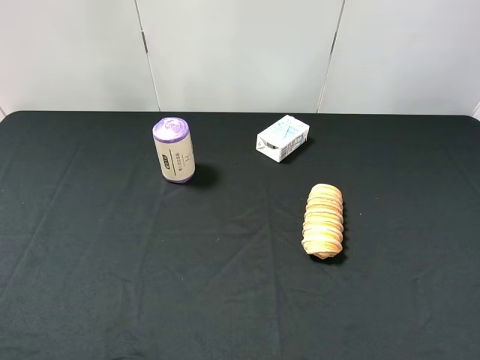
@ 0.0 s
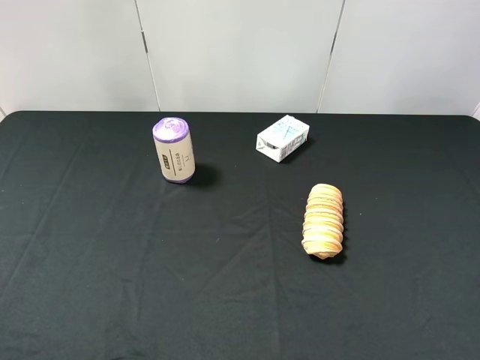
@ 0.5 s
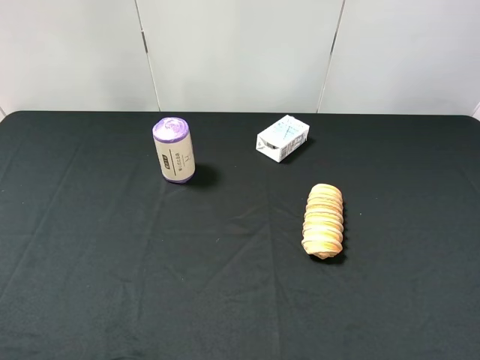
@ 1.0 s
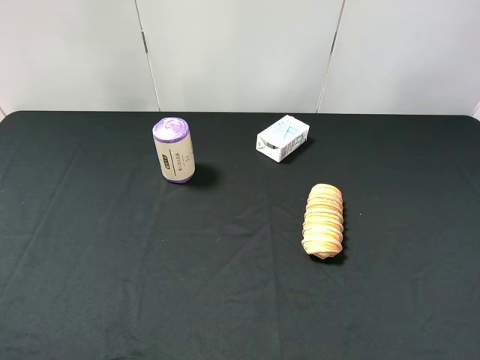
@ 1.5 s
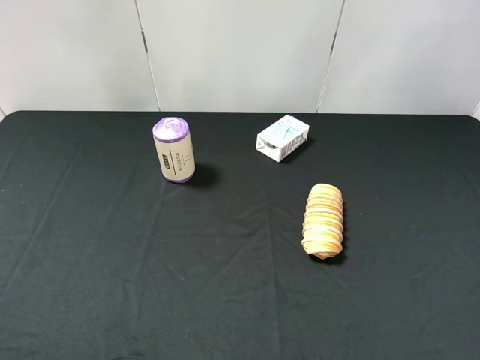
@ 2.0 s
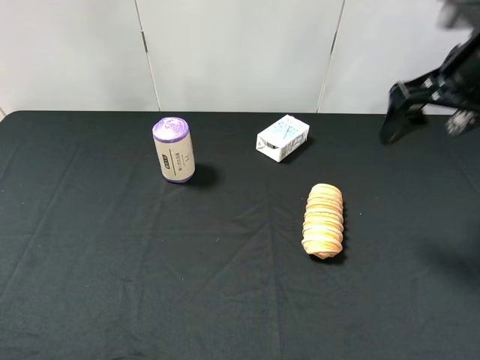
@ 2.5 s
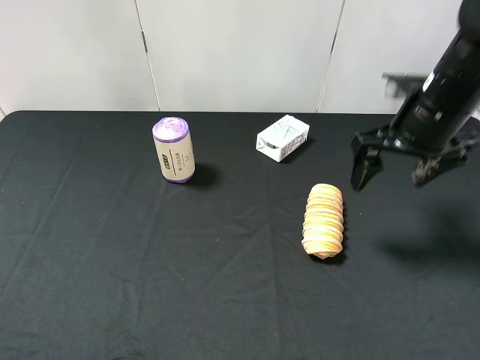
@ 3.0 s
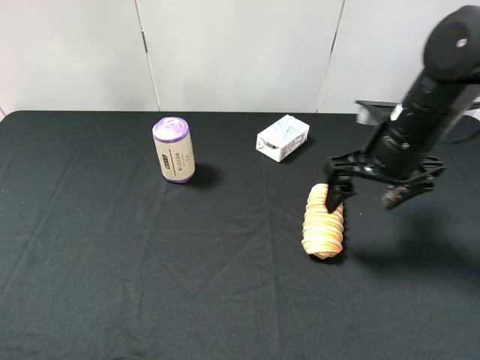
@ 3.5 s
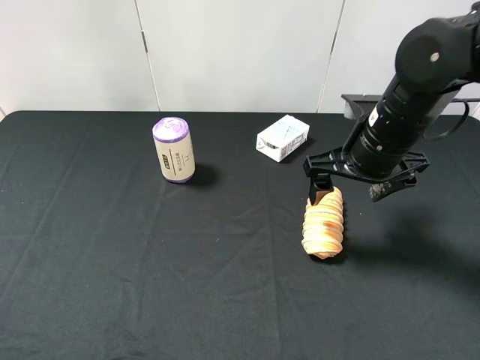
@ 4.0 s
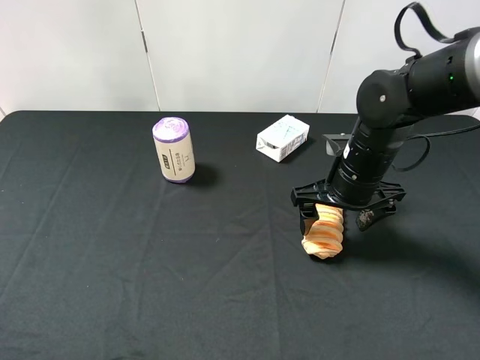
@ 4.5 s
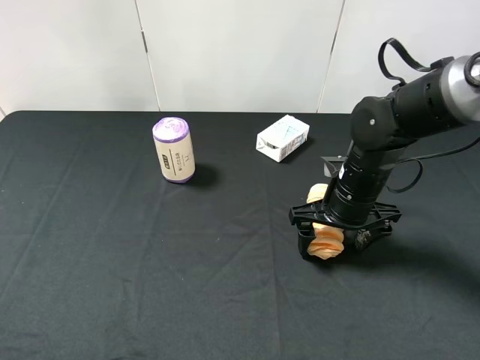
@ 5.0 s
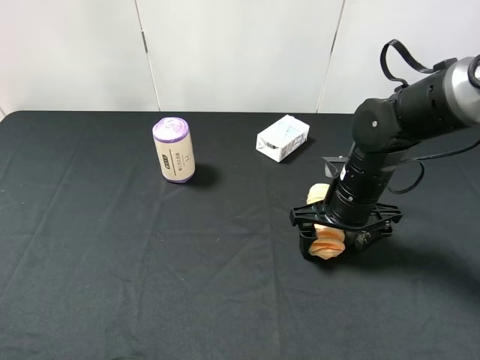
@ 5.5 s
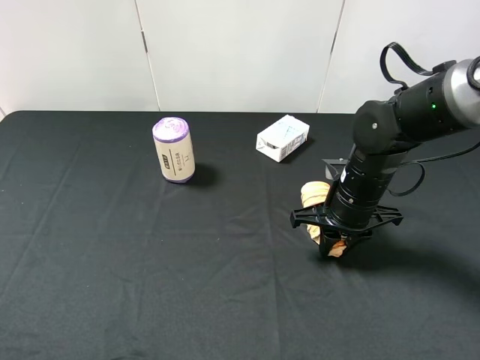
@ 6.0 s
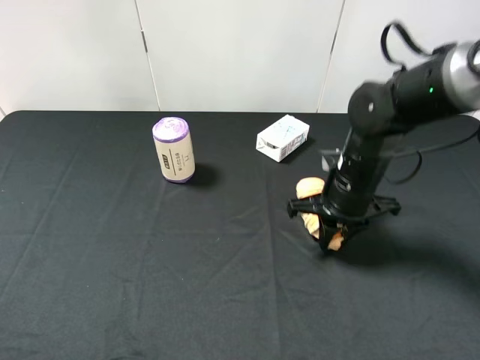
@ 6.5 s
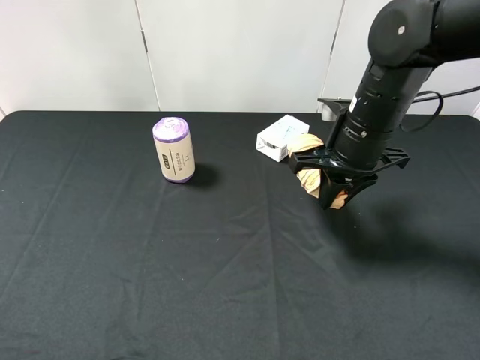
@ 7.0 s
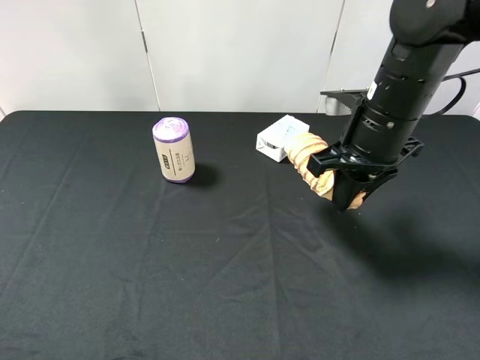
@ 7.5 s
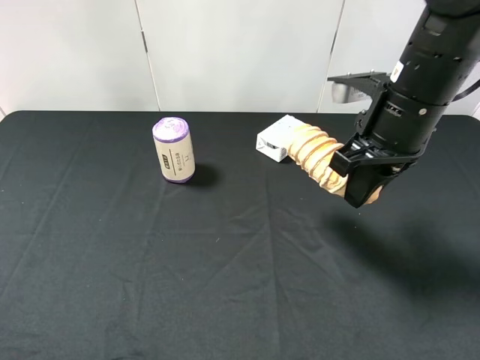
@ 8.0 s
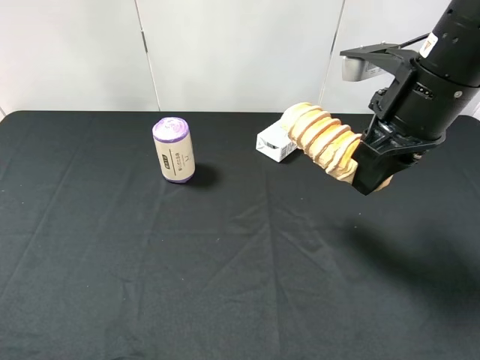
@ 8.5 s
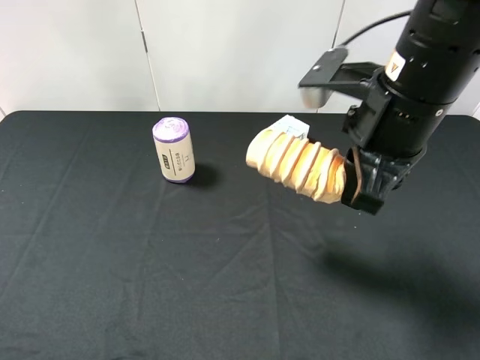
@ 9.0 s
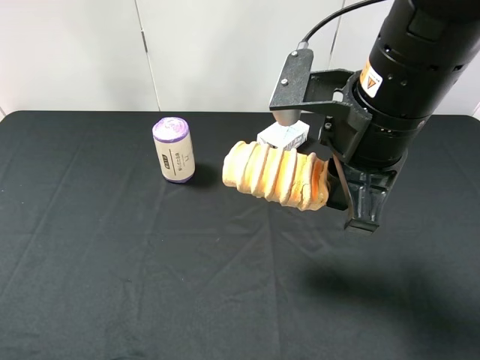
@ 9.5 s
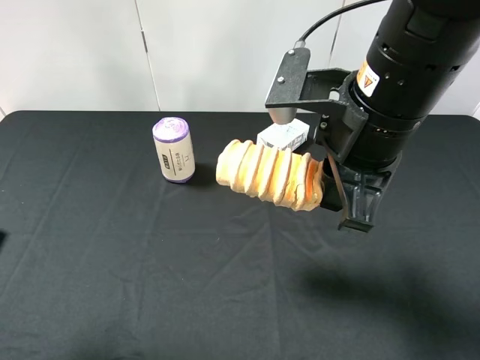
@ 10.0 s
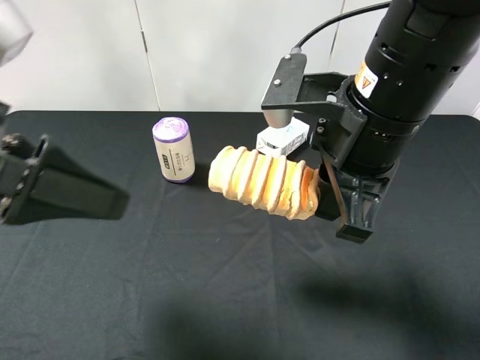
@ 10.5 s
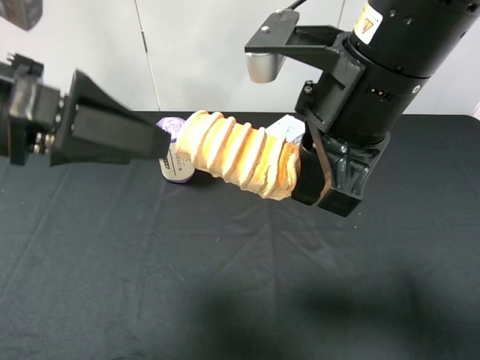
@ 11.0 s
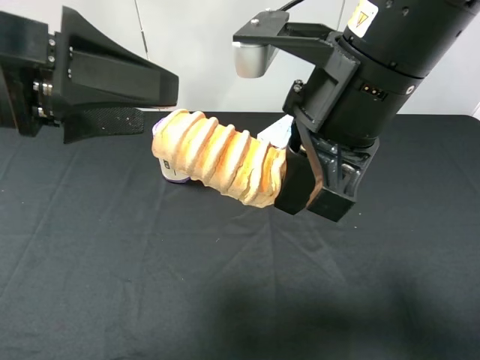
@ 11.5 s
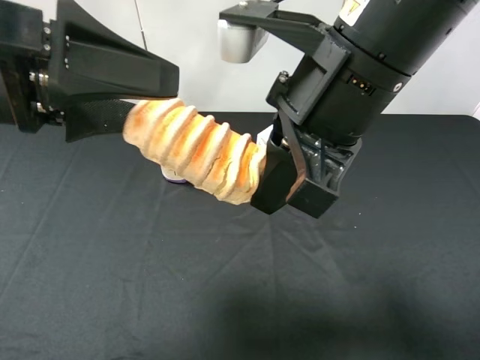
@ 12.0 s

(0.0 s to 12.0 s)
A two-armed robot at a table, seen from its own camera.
Task of the whole recording: use the right gripper to pick up the item and transfer it from the right gripper to the left gripper.
Step, 0.0 s - 5.5 s: Use the right gripper to grab the bread on the right side of the table.
2.0 s - 4.0 s: The right gripper shifts approximately 25 cm downward, to the left and forward.
4.0 s - 6.0 s: The right gripper shifts approximately 10 cm downward, and closes its fingers.
6.0 s - 8.0 s: The right gripper shifts some 15 cm upward.
8.0 s - 10.0 s: The left gripper is displaced forward and to the right by about 10 cm. Meanwhile the right gripper is displaced to the left and backward by roughly 10 cm.
10.0 s - 12.0 s: The left gripper heads forward and to the right, covering approximately 10 cm; the right gripper ends up about 5 cm from where it was.

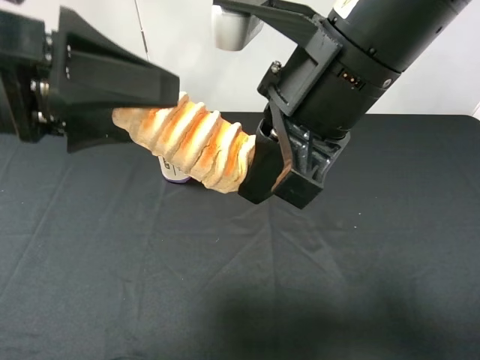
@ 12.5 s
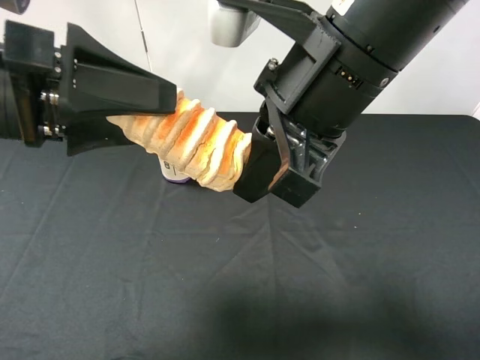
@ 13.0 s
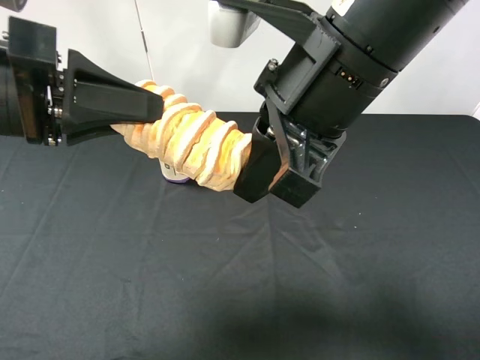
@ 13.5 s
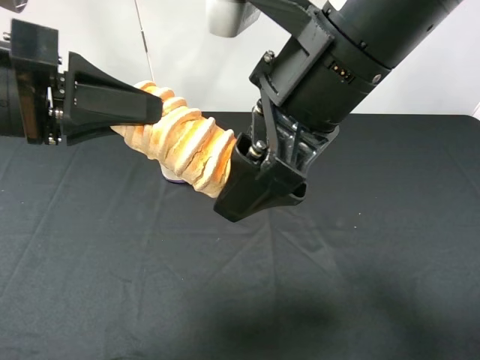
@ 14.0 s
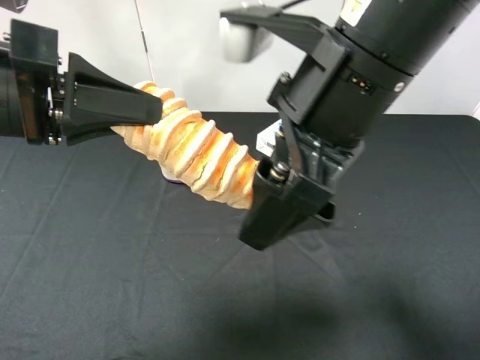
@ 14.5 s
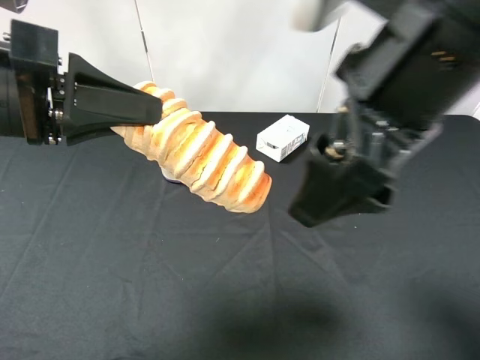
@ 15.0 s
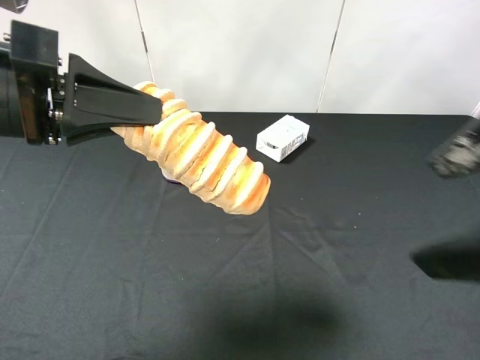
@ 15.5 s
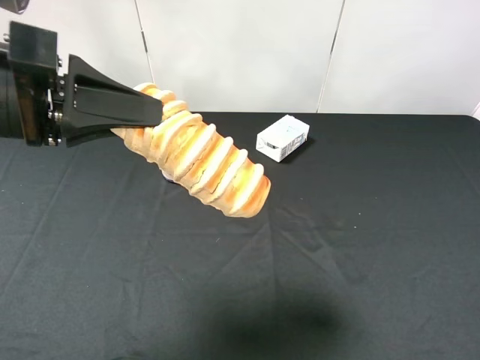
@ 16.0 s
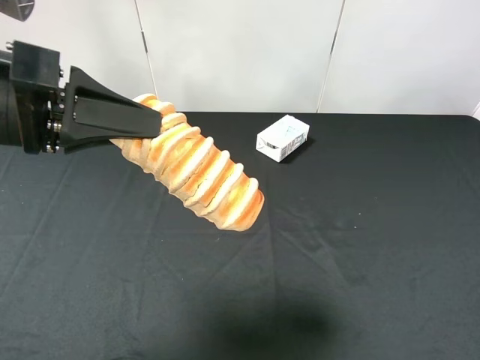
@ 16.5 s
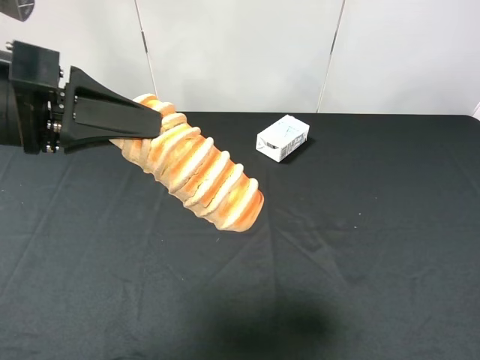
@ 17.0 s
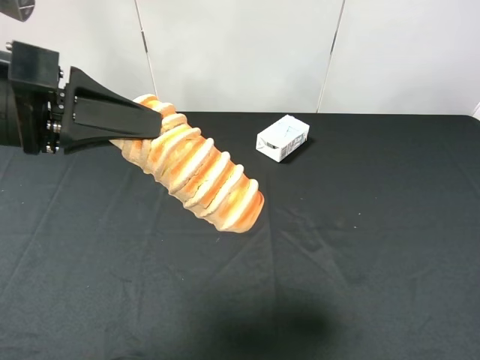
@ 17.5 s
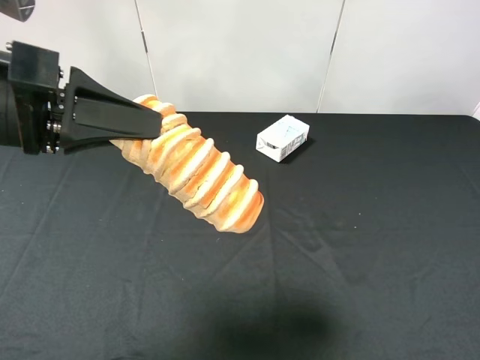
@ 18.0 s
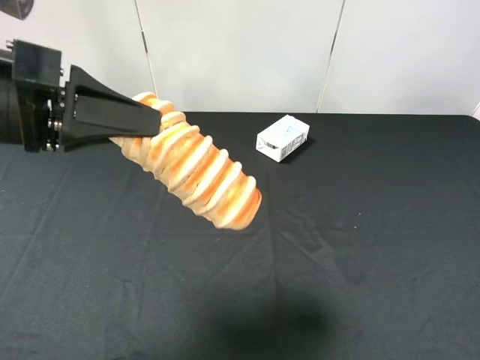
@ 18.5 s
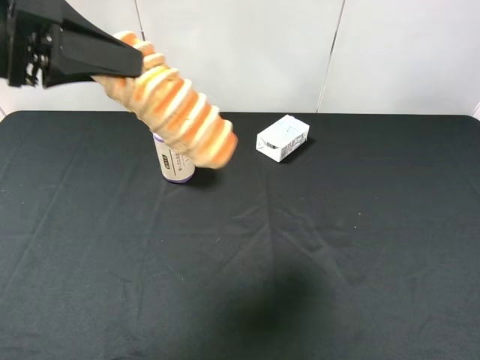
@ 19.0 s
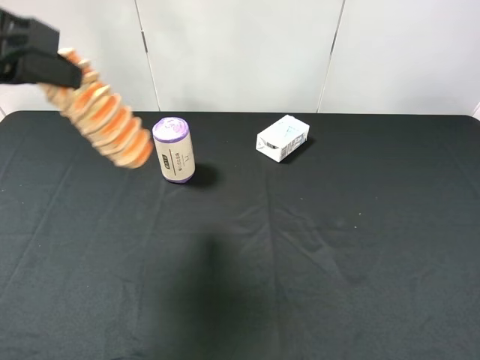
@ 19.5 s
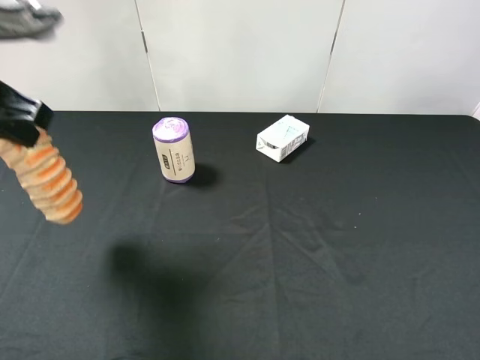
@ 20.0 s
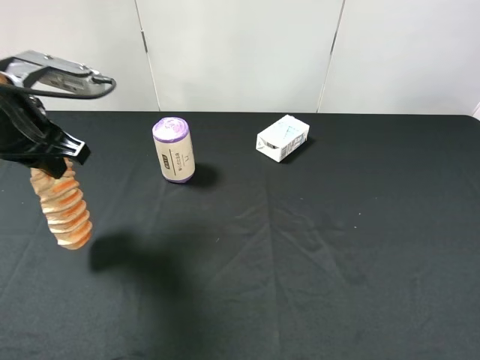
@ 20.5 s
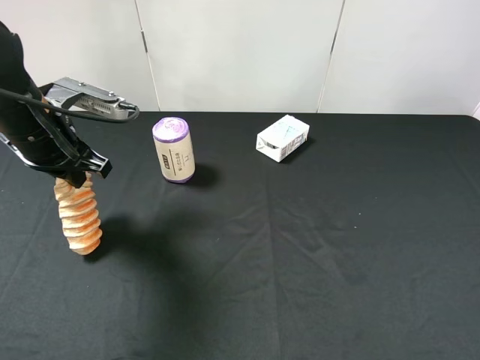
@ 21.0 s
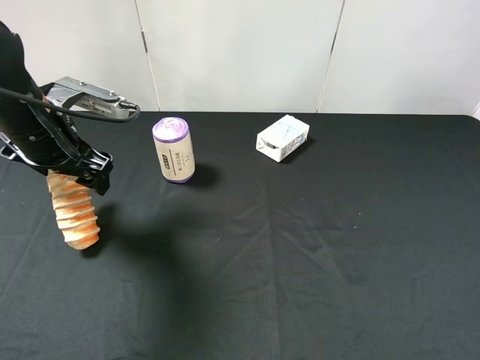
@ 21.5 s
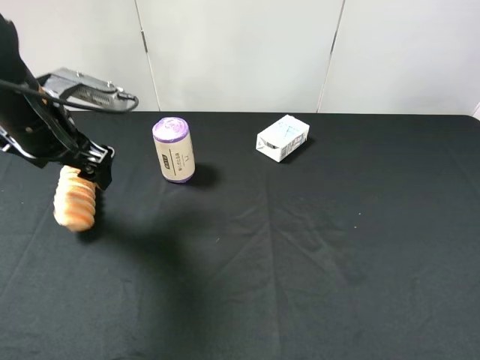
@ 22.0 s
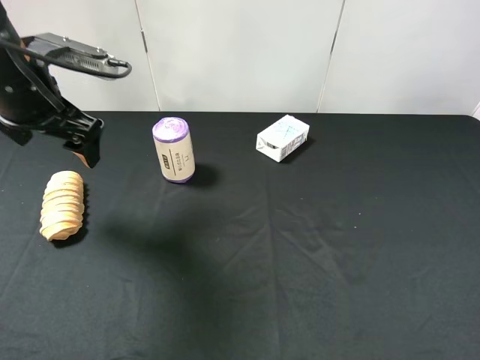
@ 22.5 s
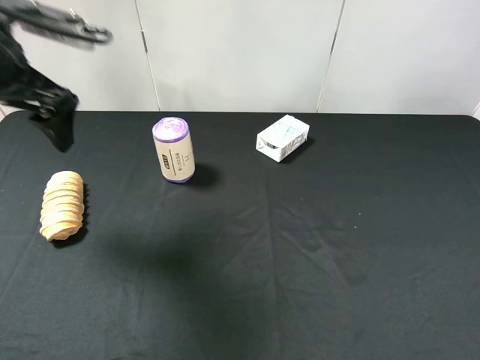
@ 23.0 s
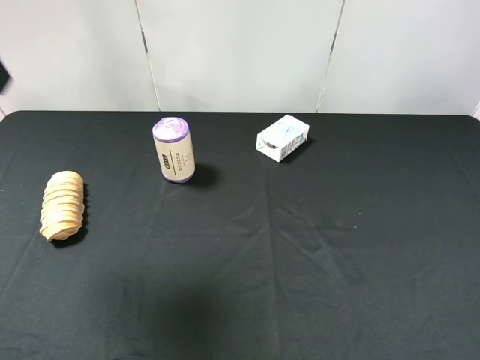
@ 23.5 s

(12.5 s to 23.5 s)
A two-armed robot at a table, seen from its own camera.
Task of the whole recording: use the right gripper to pick up the item and transfer it from the right gripper to the left gripper.
Step, 14.5 s - 21.5 s: The left gripper places bread on the left side of the table.
12.5 s - 14.5 s: The right gripper opens up. Meanwhile the left gripper closes up.
14.5 s - 16.0 s: The right gripper travels to the right and backward by roughly 25 cm.
18.0 s - 20.0 s: The left gripper travels to the left by some 5 cm.
20.0 s - 21.5 s: The left gripper is displaced downward and forward by about 10 cm, and opens up.
21.5 s - 23.5 s: The left gripper shifts about 20 cm upward and backward.

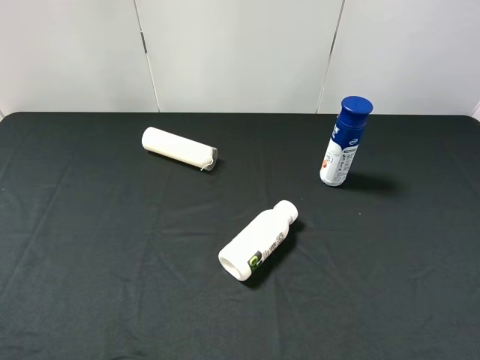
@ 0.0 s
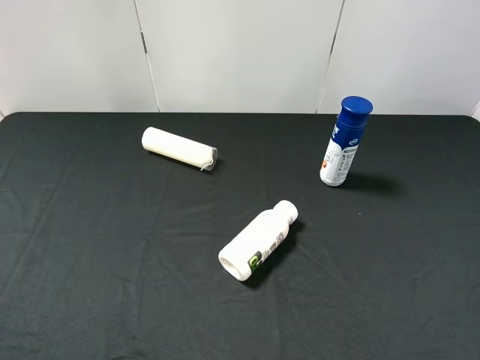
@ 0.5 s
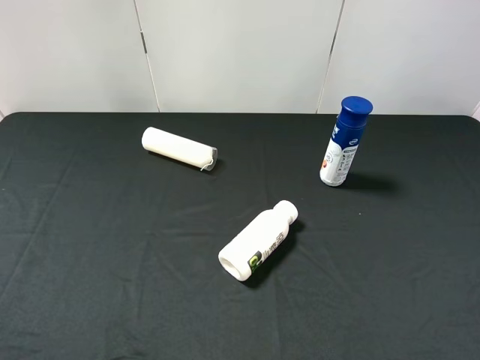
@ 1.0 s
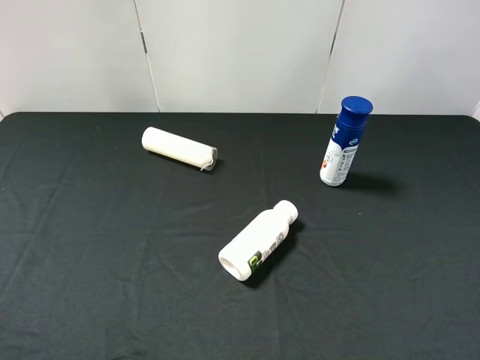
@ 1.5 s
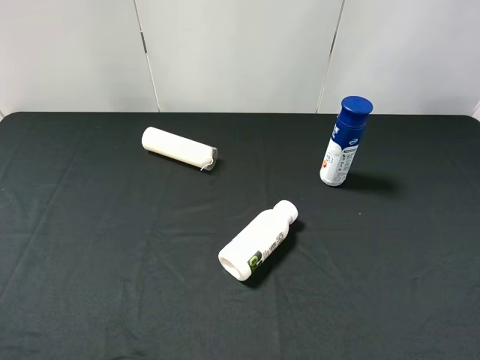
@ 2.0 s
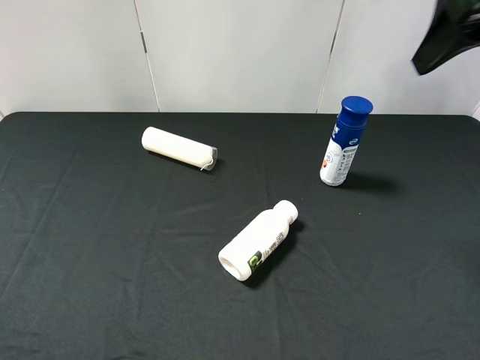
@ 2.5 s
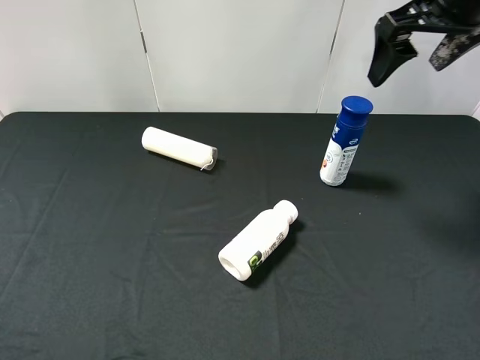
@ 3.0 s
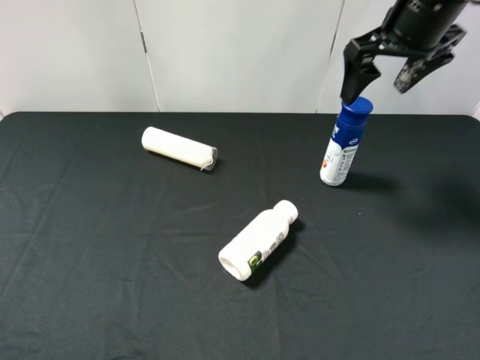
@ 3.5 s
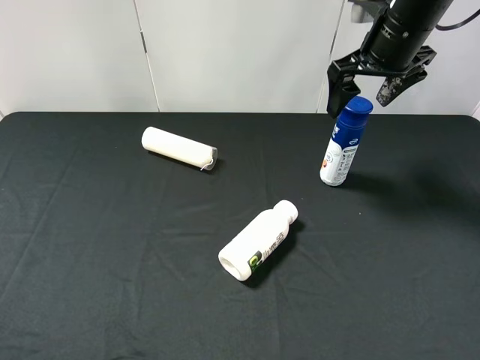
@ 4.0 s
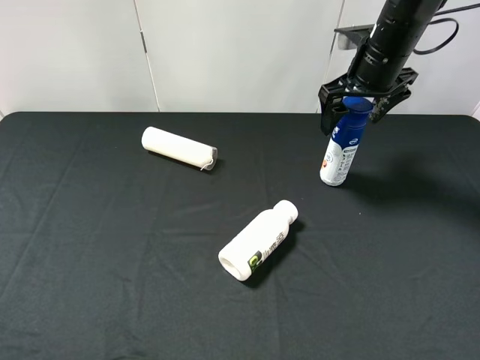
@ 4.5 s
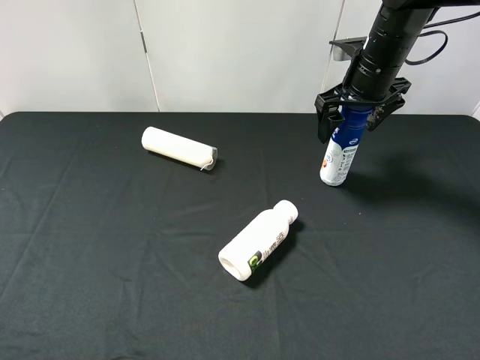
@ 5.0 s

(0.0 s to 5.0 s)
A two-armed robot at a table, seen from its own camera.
Task of the whole recording: use the right gripper to pick up the item and transfer it from the right gripper to the left gripper.
0.0 s - 2.5 s: The right gripper heads forward and upward, covering approximately 25 cm.
2.5 s - 5.0 s: The right gripper shifts roughly 20 cm downward and forward.
